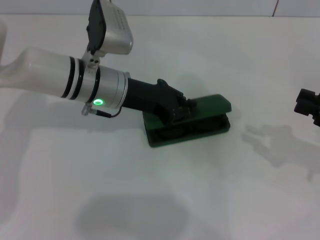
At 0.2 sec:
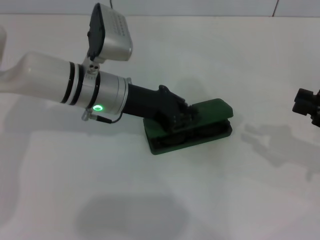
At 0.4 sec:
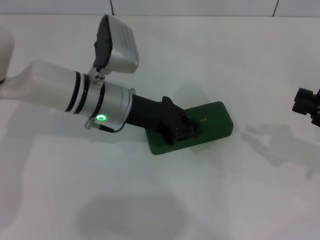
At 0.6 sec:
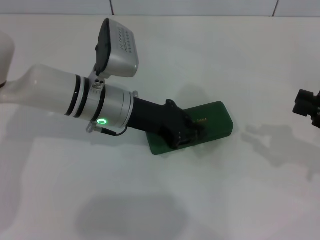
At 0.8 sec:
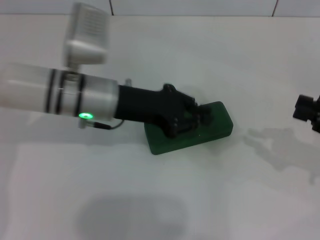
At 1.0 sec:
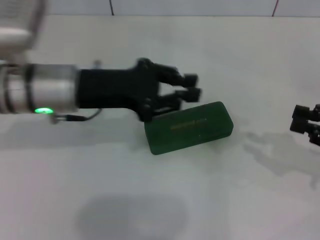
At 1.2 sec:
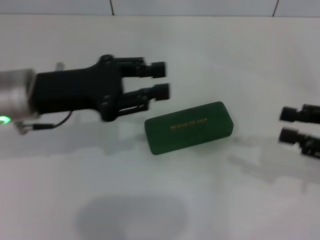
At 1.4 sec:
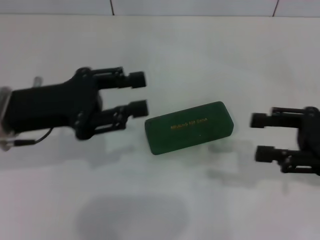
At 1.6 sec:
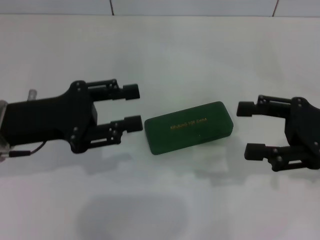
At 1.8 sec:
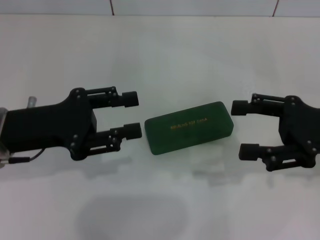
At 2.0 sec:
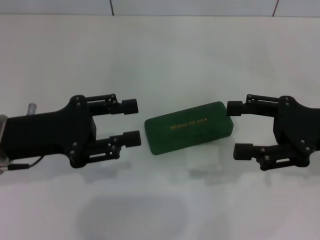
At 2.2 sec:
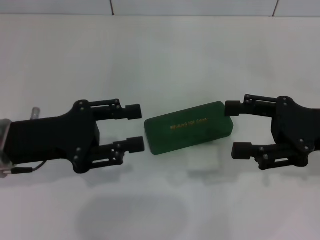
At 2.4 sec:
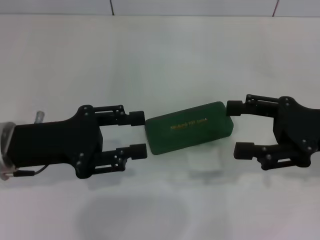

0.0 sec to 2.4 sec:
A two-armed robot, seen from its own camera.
0.0 sec to 1.2 sec: The left gripper shifts approximately 10 cm to the left and backward.
1.2 sec to 2.4 sec: The left gripper moves approximately 5 cm, and opens up. The right gripper goes roughly 5 cm to the left, and opens its fingers.
